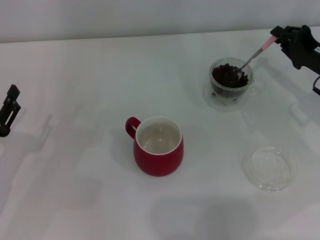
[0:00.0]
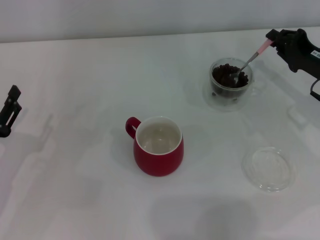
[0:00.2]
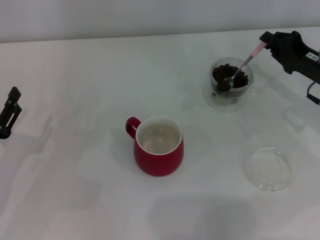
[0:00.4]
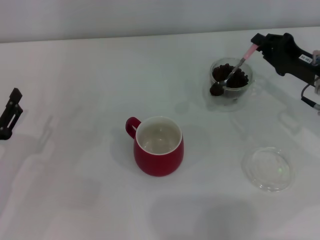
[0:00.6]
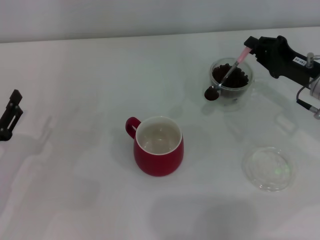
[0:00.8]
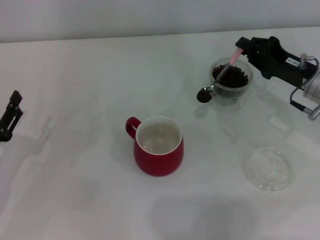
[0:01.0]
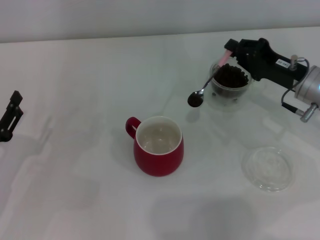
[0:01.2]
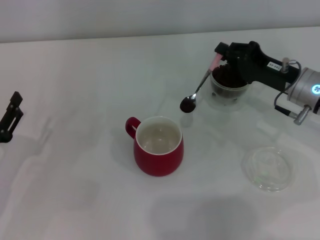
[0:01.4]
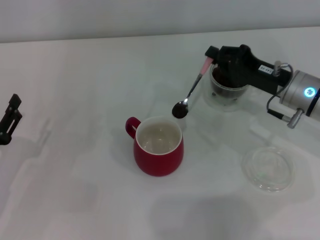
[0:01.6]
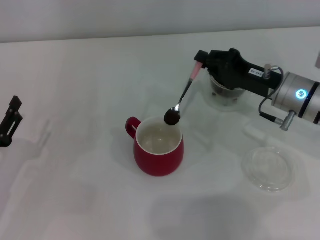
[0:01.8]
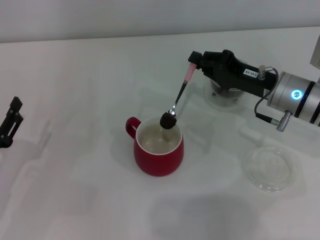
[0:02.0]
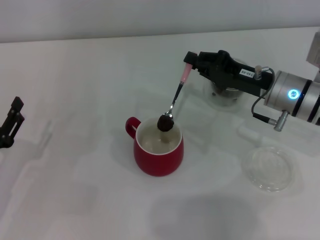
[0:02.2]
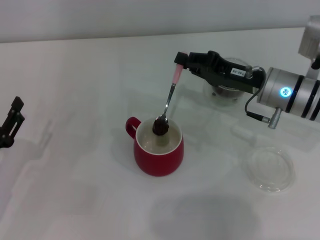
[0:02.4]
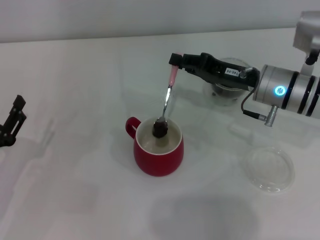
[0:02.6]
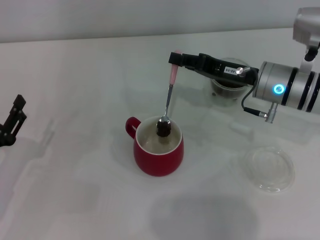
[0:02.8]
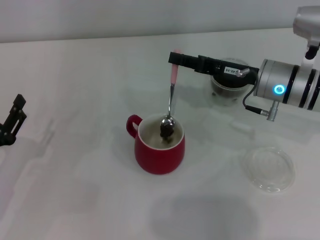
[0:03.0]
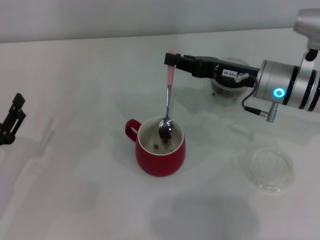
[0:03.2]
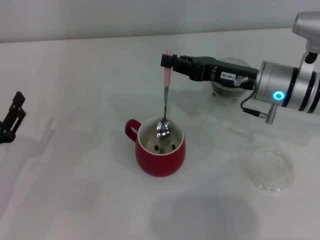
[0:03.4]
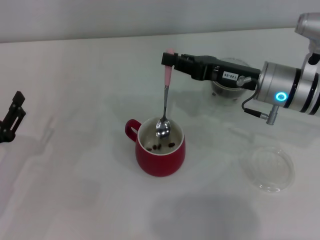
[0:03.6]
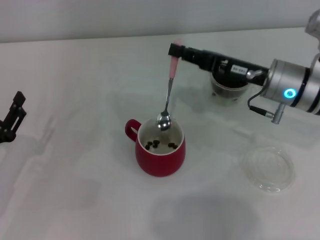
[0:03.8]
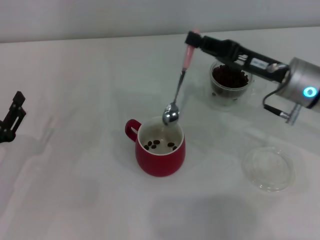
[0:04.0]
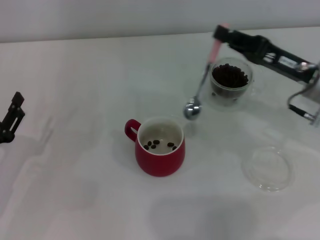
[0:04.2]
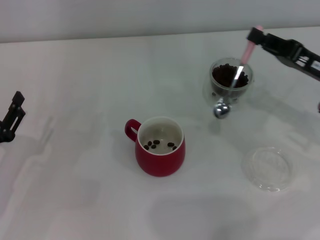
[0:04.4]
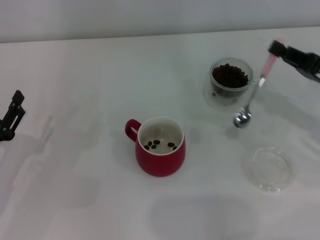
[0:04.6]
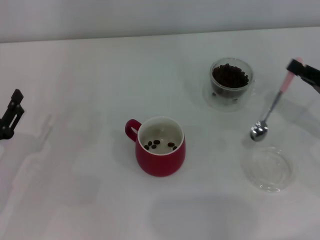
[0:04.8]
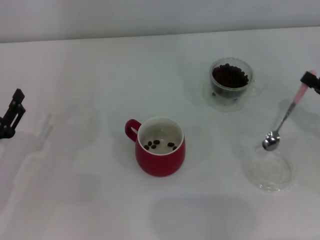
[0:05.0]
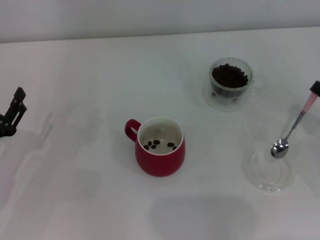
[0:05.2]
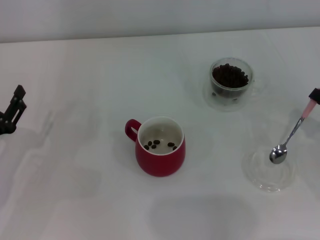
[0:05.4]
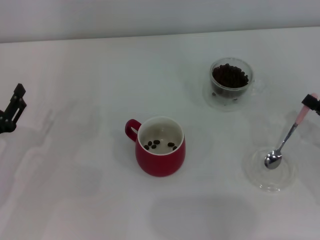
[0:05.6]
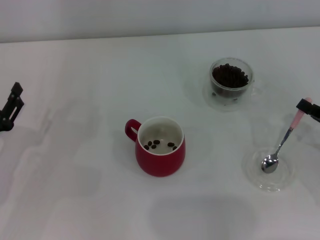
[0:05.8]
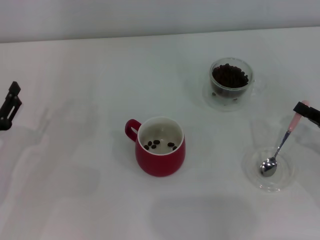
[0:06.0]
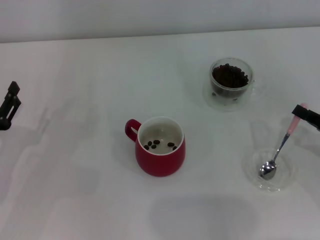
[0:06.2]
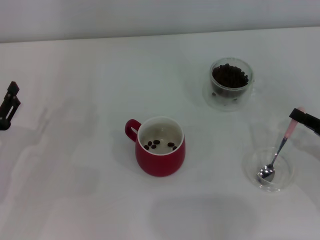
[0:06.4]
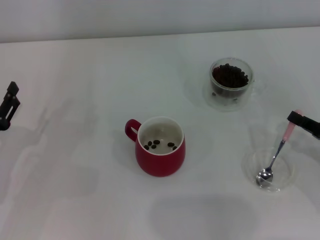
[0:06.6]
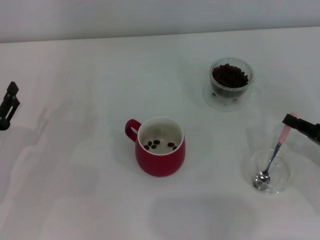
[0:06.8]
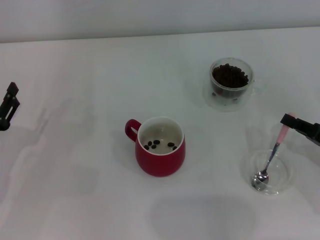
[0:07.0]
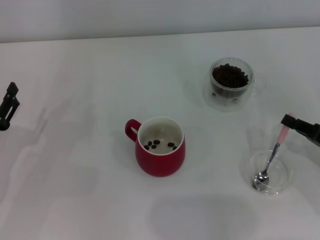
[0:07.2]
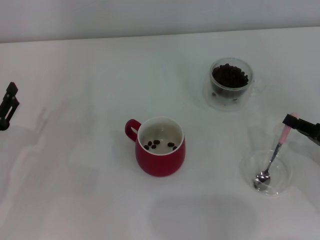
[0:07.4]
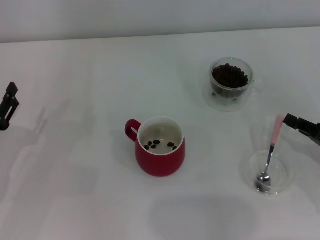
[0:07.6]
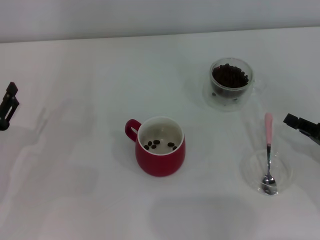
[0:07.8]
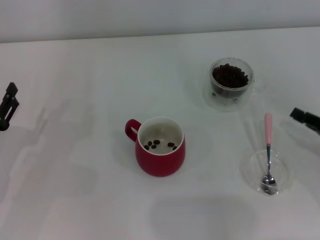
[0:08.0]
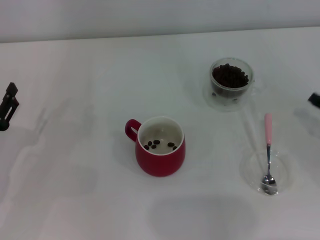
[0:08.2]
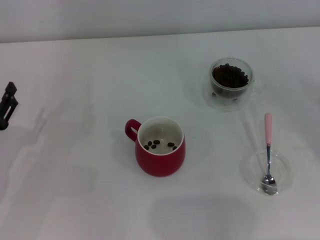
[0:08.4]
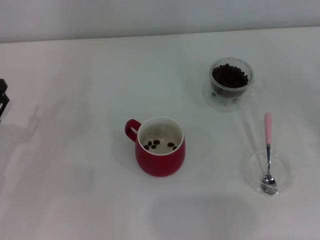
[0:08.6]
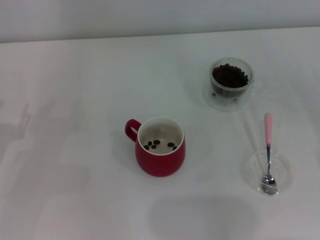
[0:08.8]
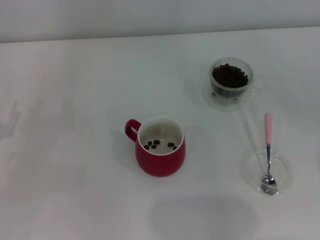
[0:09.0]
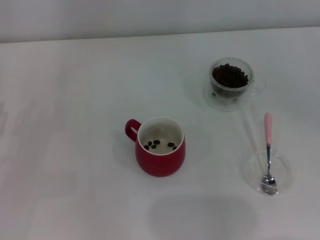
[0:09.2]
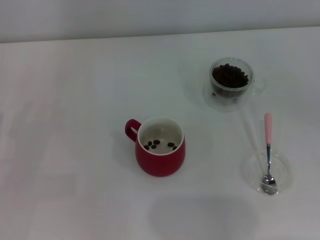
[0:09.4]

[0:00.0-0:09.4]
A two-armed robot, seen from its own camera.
Task of the whole recording: Use a pink spoon to take out the coffee beans from the glass and pour them into the red cup.
Step, 0:00.0 to 0:03.8: Scoop a spoonful of beans into the cup with the right gripper.
Step, 0:04.0 to 0:07.8: Place the spoon back in its original place with the right gripper.
0:00.0 to 0:01.6: The right gripper travels to the left by about 10 cm.
0:01.6 to 0:03.2: The right gripper ends up about 5 cm from where it was.
0:03.2 to 0:04.8: The right gripper is displaced to the right and backward by about 15 cm.
0:04.8 to 0:06.2: The right gripper shifts by some 5 cm.
0:06.2 to 0:07.8: The grippers make only small movements.
0:07.8 to 0:09.4: The right gripper goes approximately 10 cm to the right.
